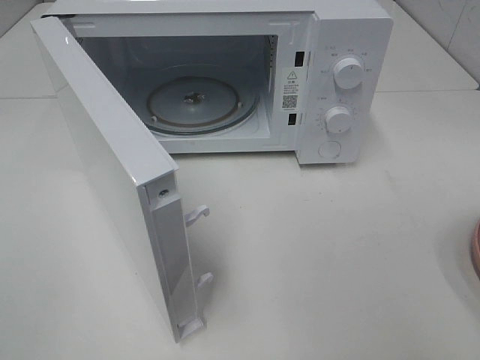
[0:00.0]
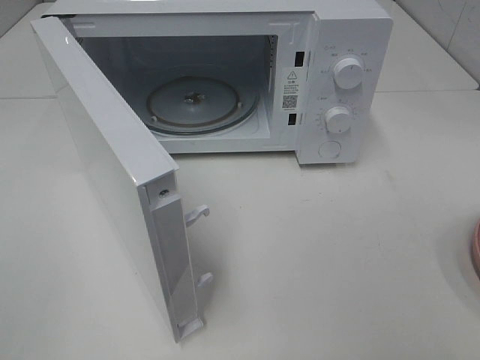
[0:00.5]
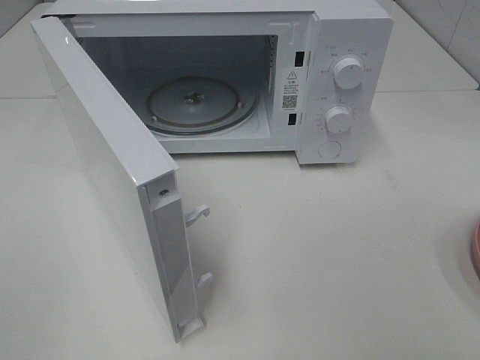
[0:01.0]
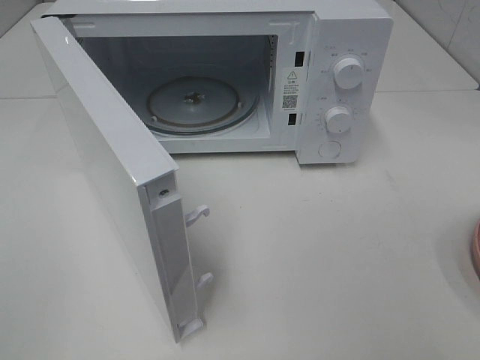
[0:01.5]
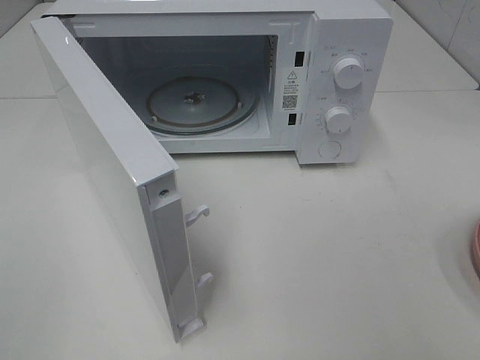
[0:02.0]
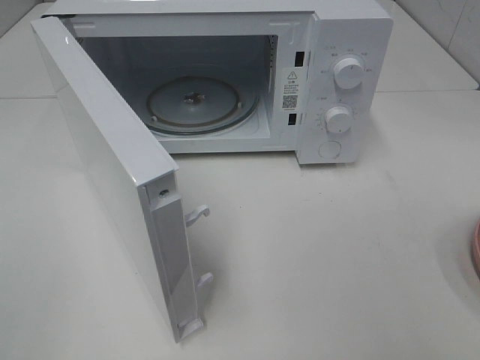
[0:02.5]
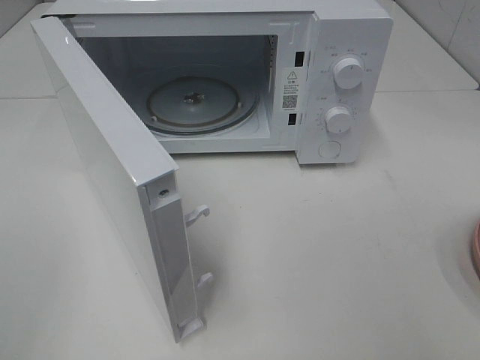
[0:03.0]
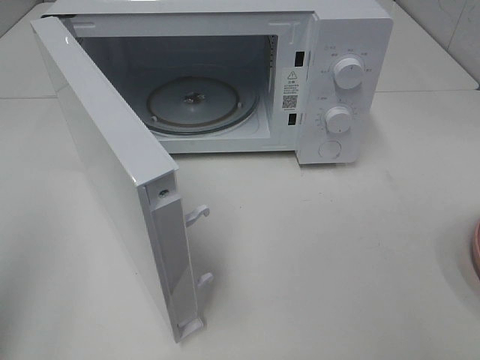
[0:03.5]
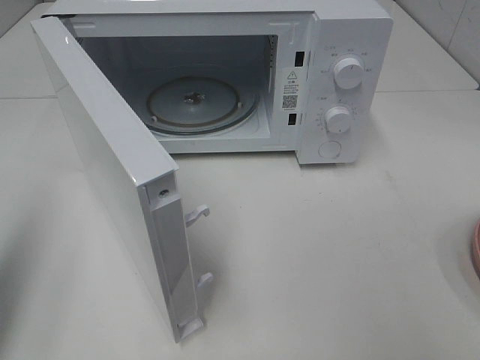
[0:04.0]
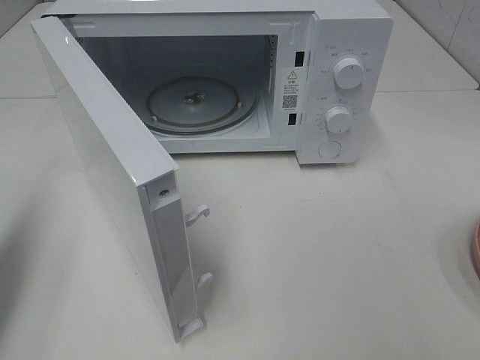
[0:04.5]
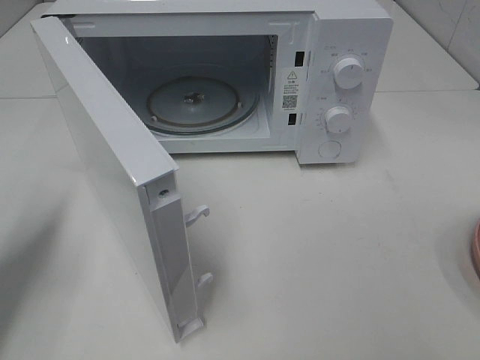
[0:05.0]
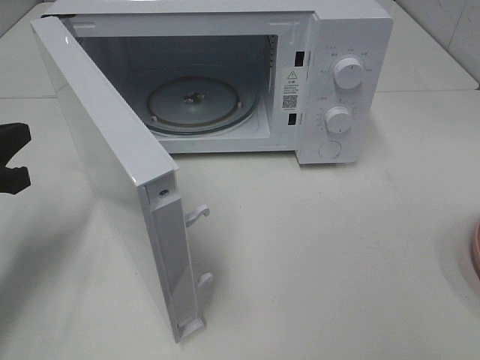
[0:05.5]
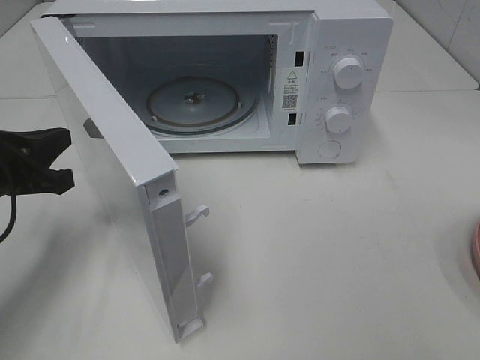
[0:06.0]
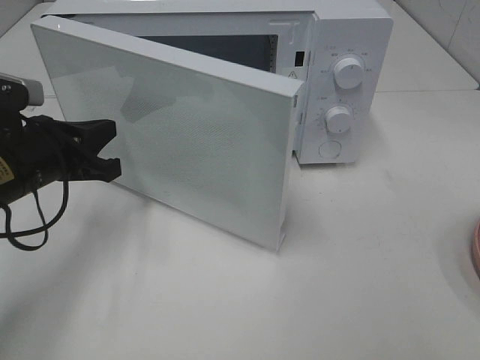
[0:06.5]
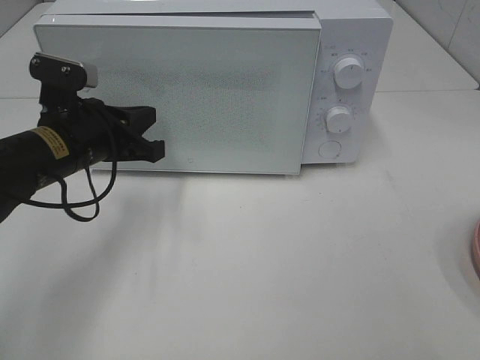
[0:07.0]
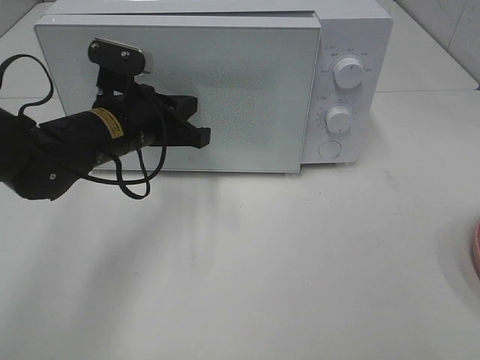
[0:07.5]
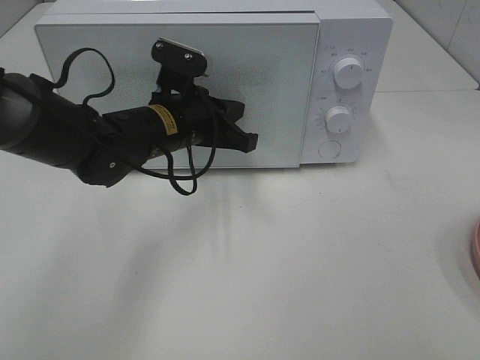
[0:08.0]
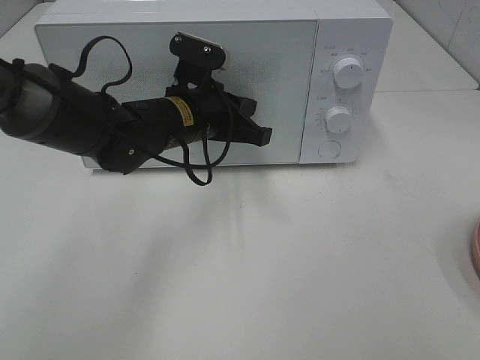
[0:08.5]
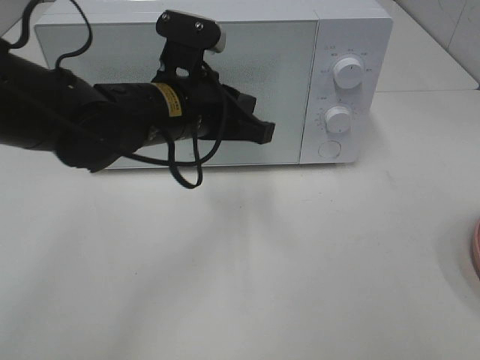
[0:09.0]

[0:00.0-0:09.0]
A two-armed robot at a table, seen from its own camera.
Task of the whole recording: Heat the burger.
Step, 0:00.0 to 0:08.5: Left hand: close the microwave door.
0:02.0 to 0:04.5: The left gripper goes about 20 cm forward, and closes up.
0:04.5 to 0:07.0: The left gripper shifts some 25 cm to the right, forward and downward.
0:07.0 to 0:09.0: The left gripper heads to the right, covering roughly 10 cm.

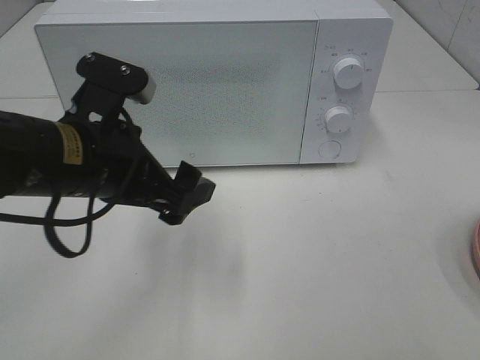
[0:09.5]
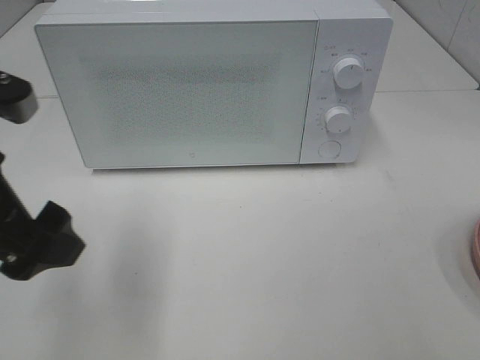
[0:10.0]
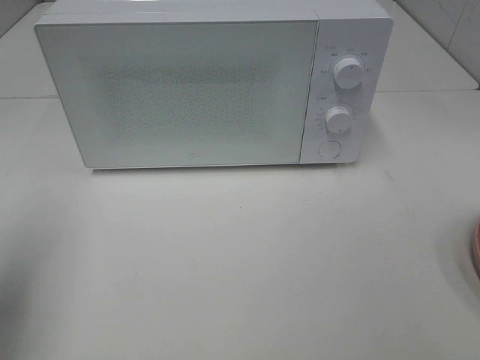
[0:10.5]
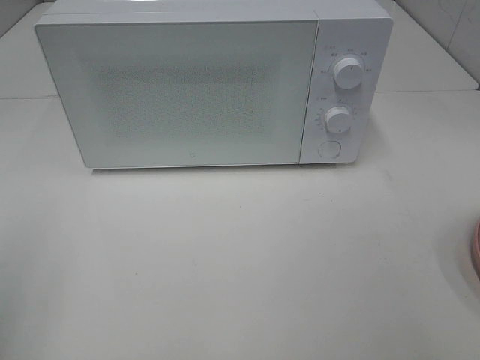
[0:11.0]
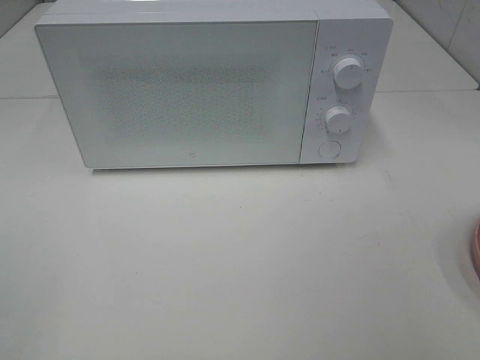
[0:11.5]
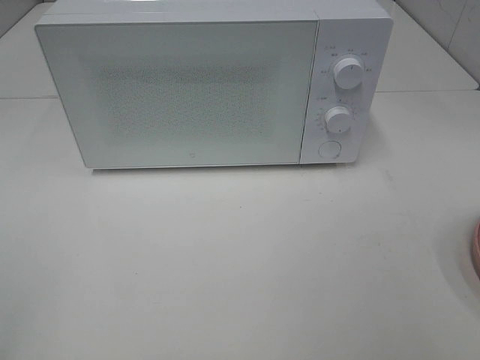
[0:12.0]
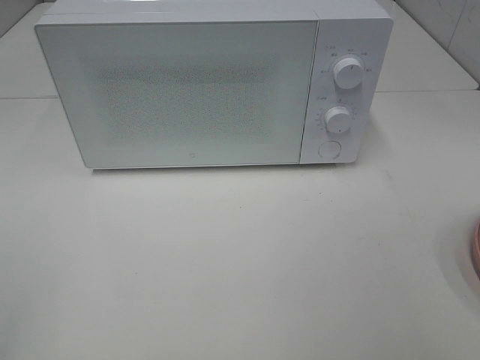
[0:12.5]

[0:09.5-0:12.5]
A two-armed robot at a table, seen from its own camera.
Task of the whole recording: Heat the burger.
0:09.5 to 0:11.0: The left gripper goes some 25 cm to the left and backward.

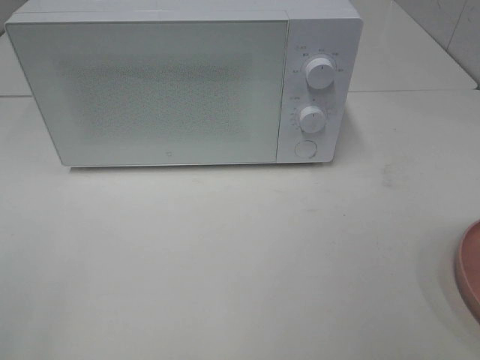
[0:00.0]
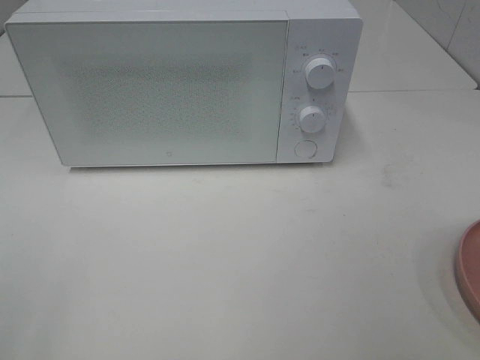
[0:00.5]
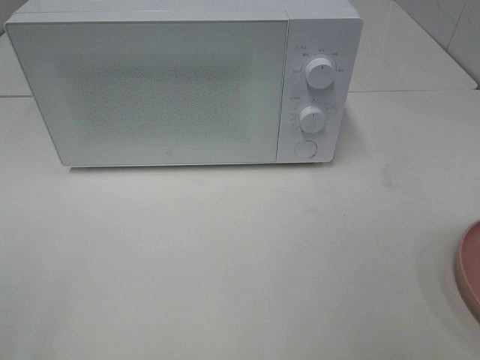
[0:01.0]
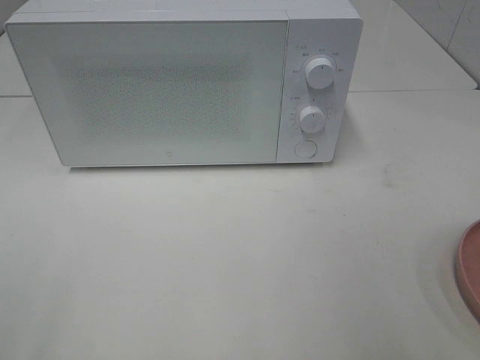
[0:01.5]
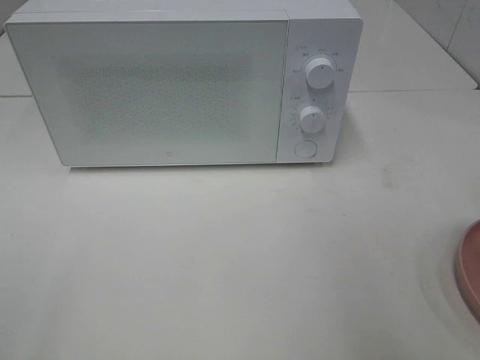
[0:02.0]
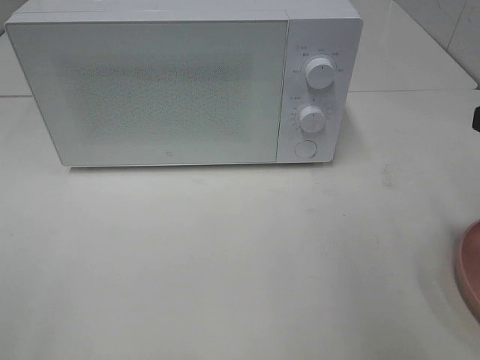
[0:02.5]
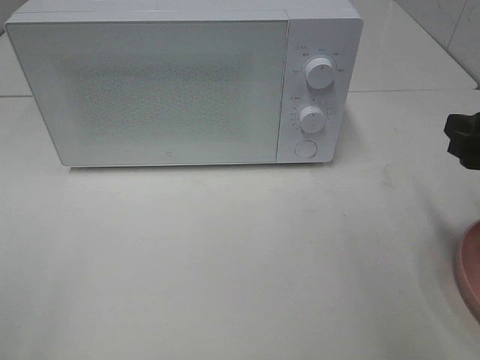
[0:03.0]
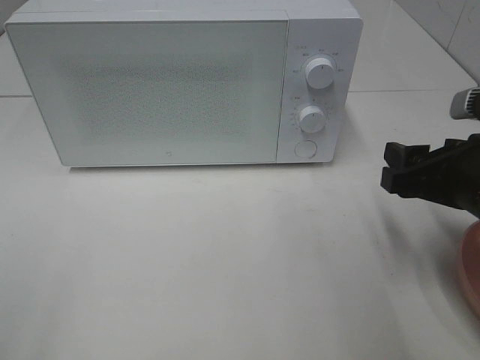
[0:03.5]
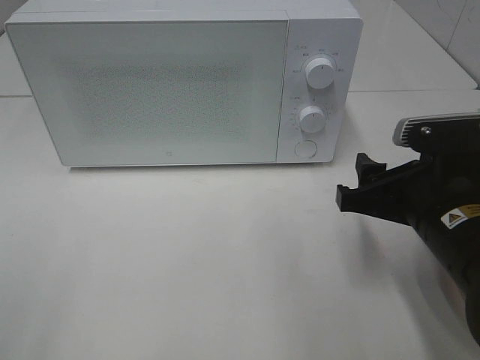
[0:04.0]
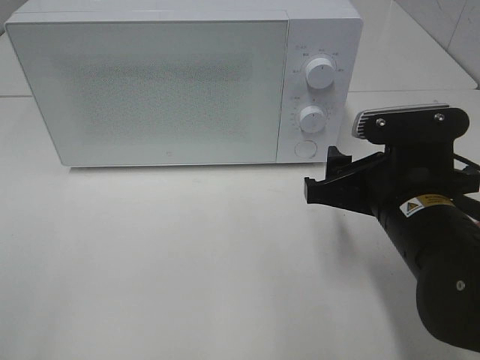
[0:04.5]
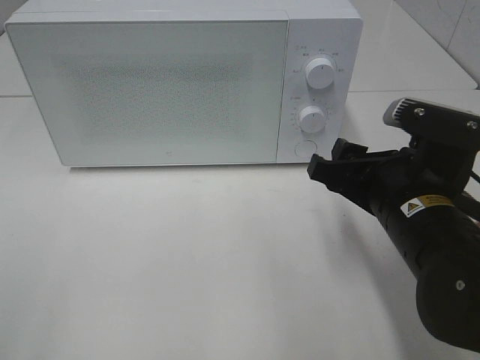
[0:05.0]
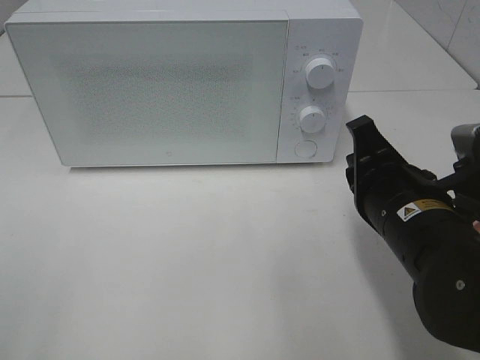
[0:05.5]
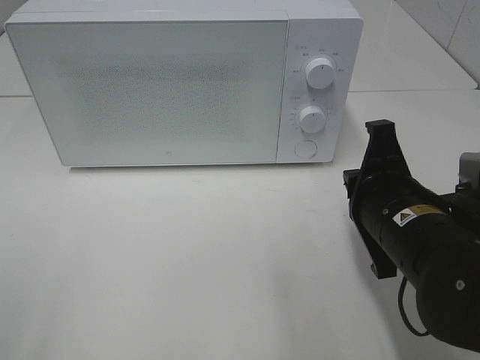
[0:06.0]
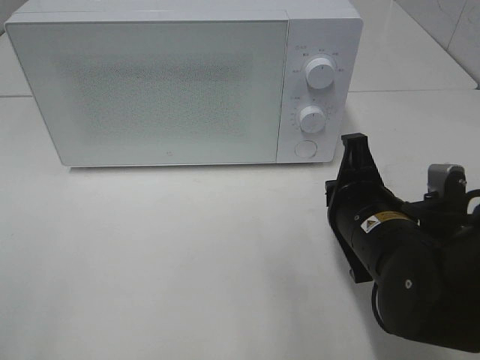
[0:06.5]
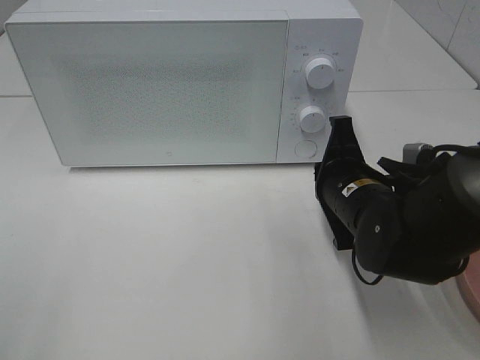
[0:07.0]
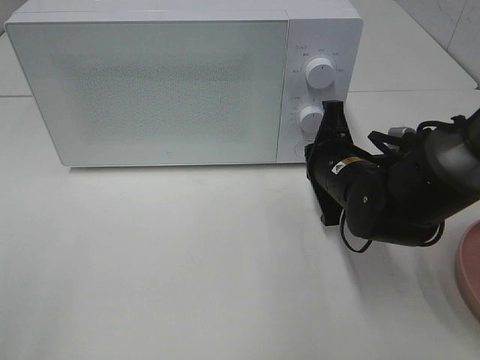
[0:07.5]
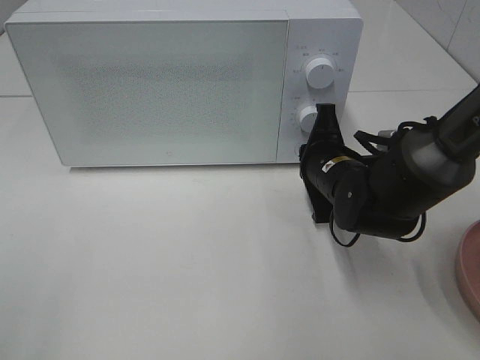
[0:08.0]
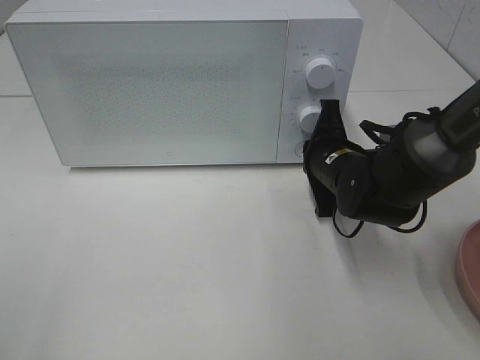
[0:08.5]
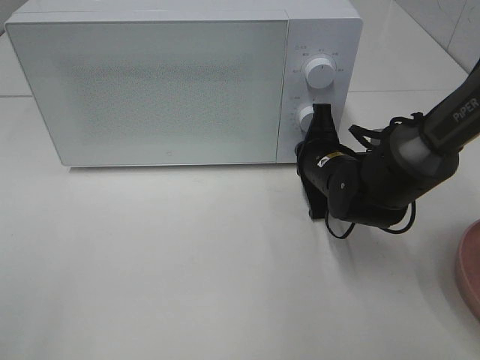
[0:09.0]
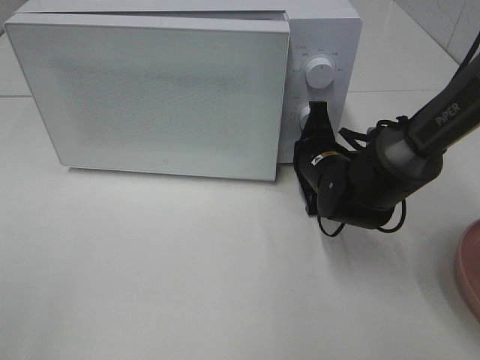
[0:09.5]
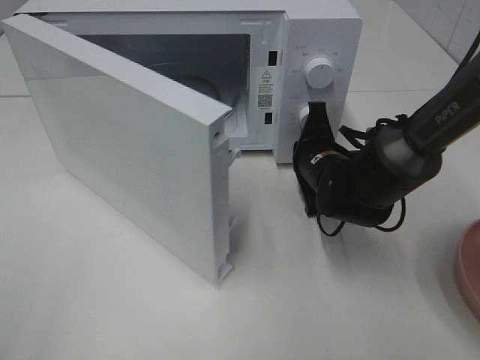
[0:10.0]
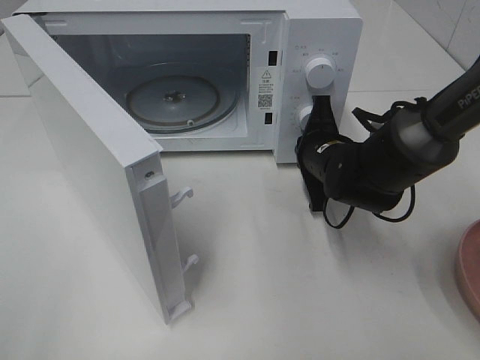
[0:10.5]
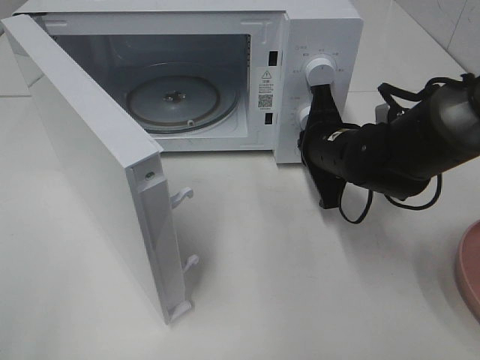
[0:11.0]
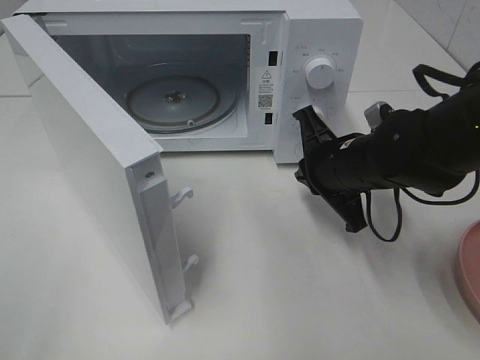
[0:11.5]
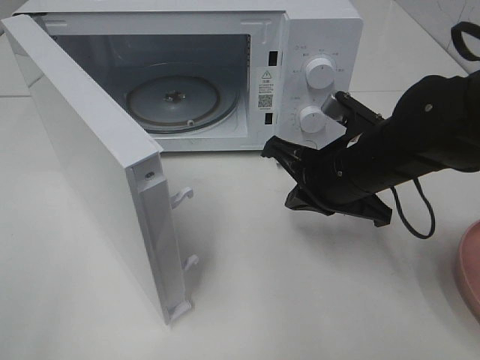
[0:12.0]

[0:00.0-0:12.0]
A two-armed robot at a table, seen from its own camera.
Task of the whole recording: Heat the burger.
Step, 0:00.0 to 0:10.5: Right hand: press the switch.
0:02.0 to 0:04.0: The right gripper moves downward, to the left and forward, about 20 cm.
0:04.0 to 0:06.0: The right gripper closes.
0:06.0 to 0:08.0: The right gripper heads forward and downward, covering about 15 cm.
0:10.0 to 0:12.0: The right gripper heads backward and upward, covering about 10 cm.

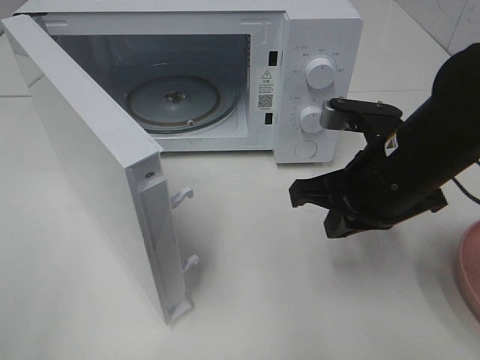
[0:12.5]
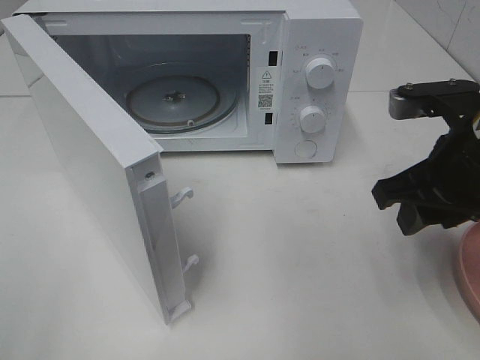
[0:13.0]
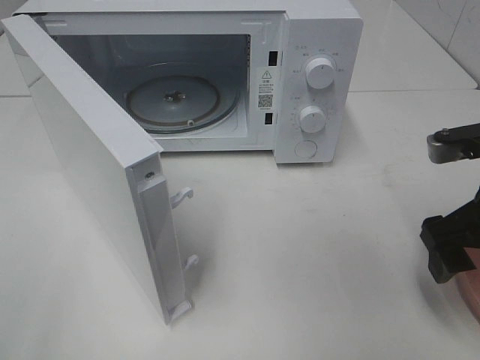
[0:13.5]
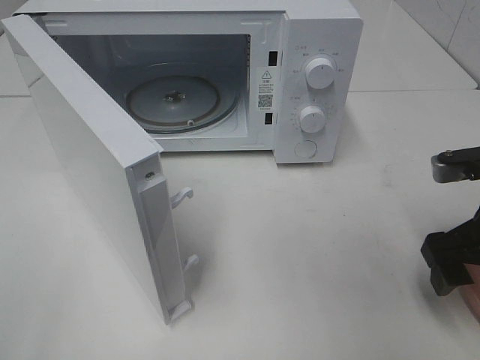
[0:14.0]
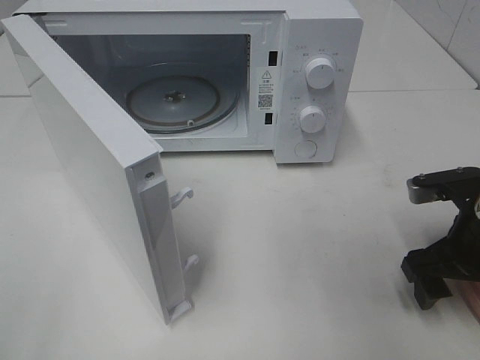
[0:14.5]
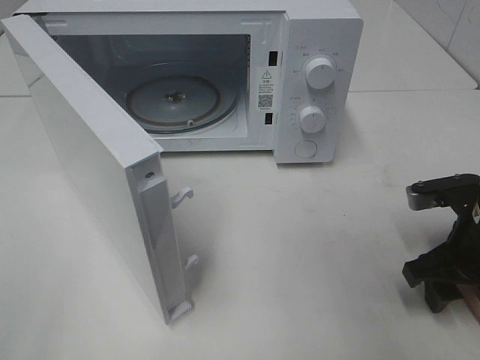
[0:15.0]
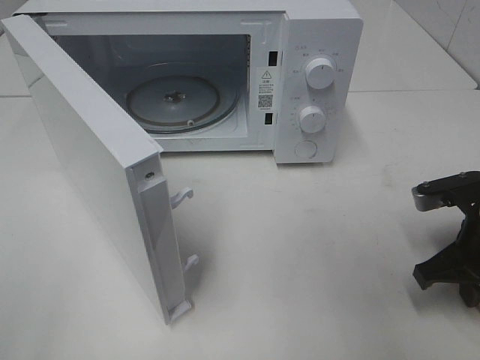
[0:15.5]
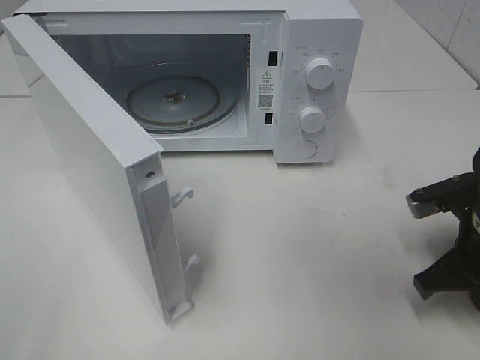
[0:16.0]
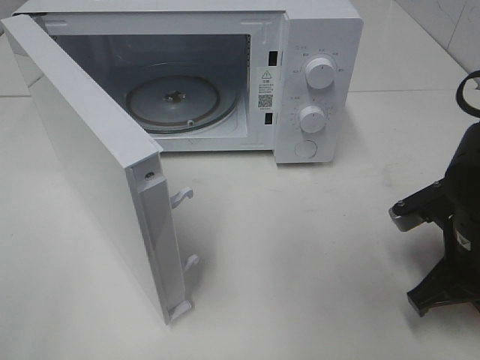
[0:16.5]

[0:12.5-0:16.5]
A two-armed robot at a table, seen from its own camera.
Task of the whole recording: Heat the burger.
Step, 0:12.5 to 0:15.0: Right hand: grab the plate with the hamburger.
0:12.5 to 0:14.5: The right gripper shifts roughly 10 cm to the right and downward, and opens its fingers.
0:14.5 to 0:16.5: The right gripper closes.
